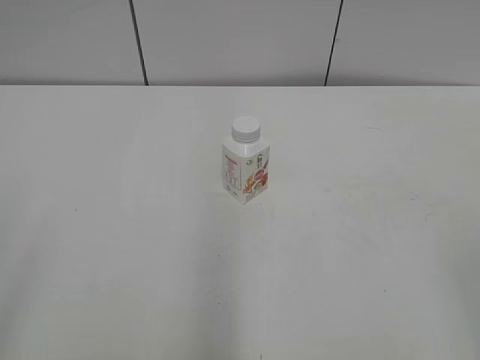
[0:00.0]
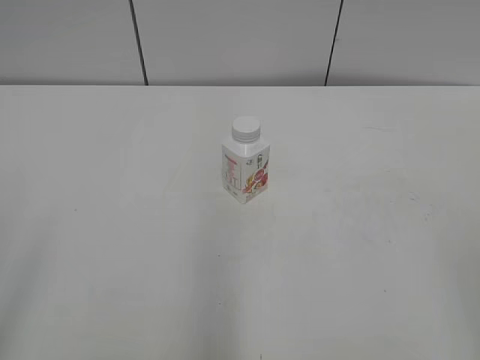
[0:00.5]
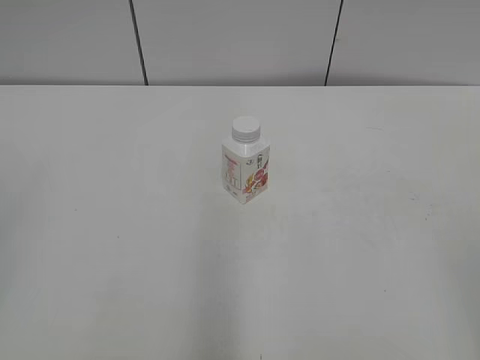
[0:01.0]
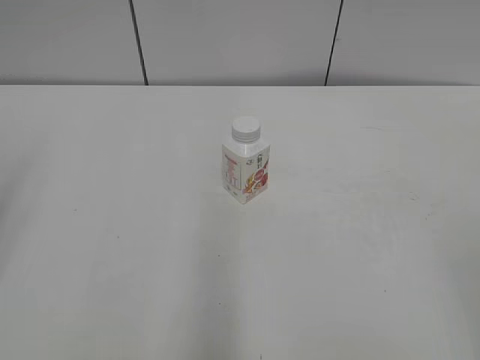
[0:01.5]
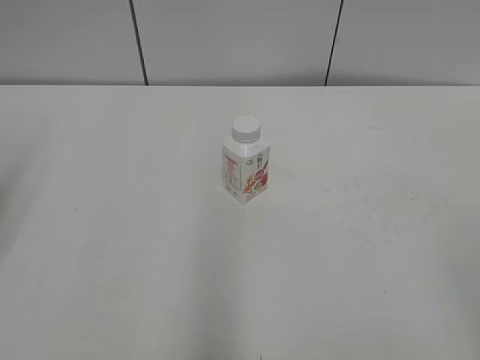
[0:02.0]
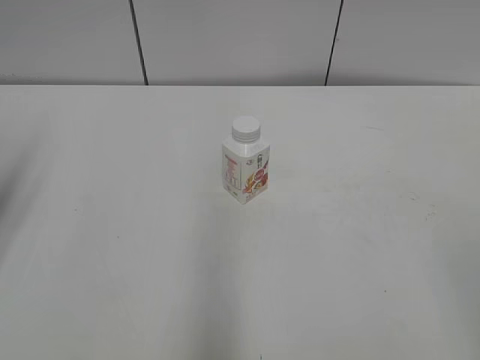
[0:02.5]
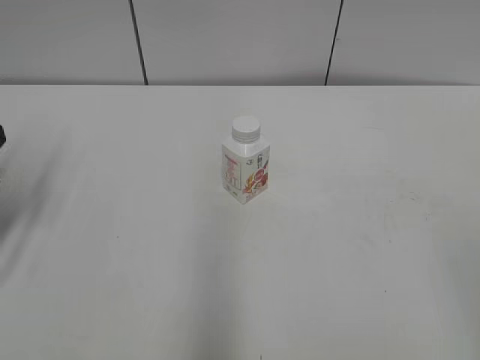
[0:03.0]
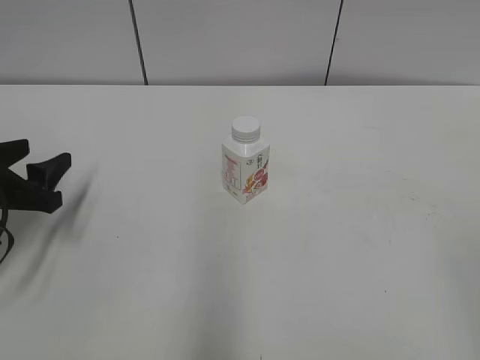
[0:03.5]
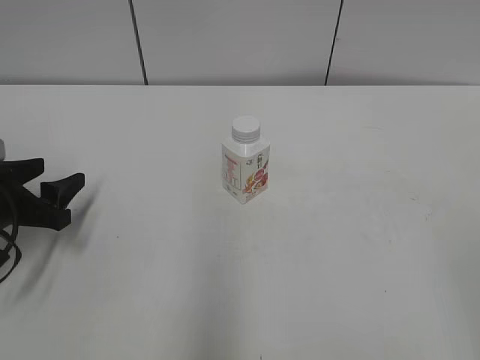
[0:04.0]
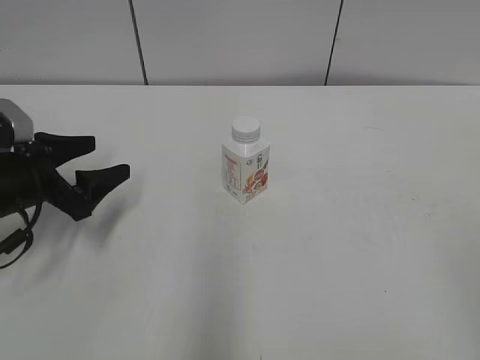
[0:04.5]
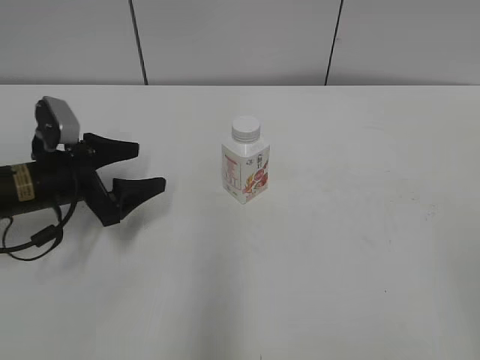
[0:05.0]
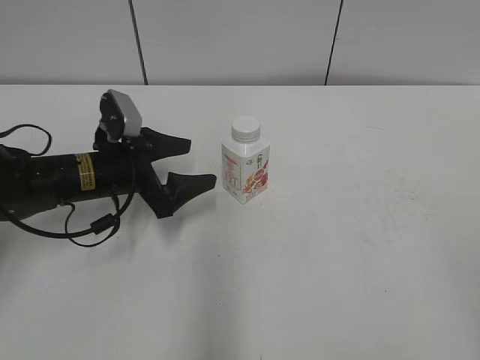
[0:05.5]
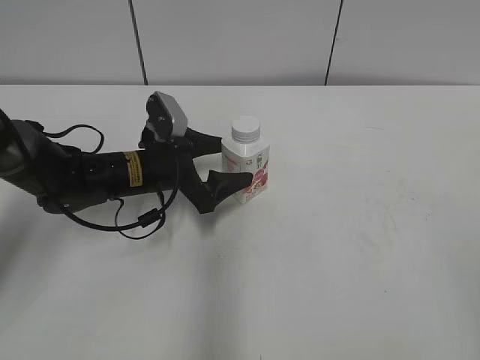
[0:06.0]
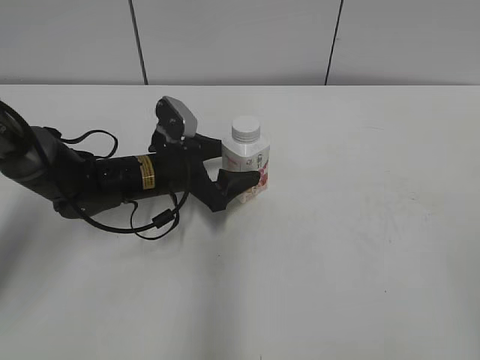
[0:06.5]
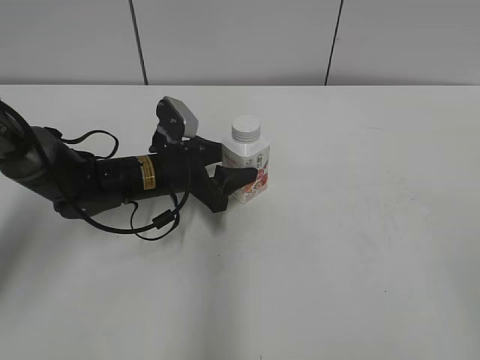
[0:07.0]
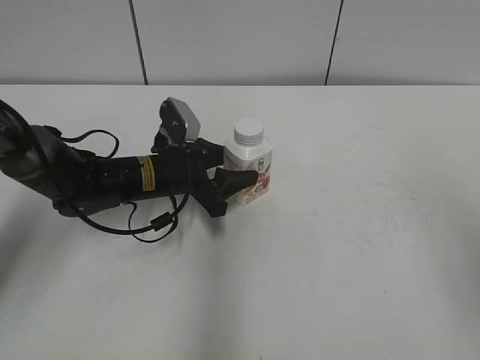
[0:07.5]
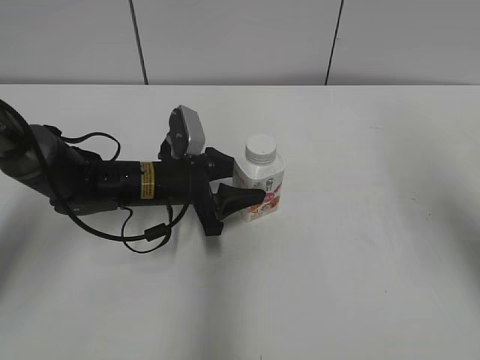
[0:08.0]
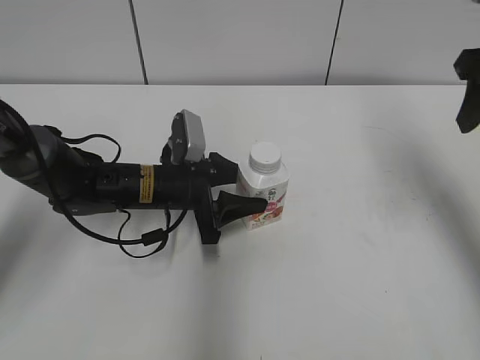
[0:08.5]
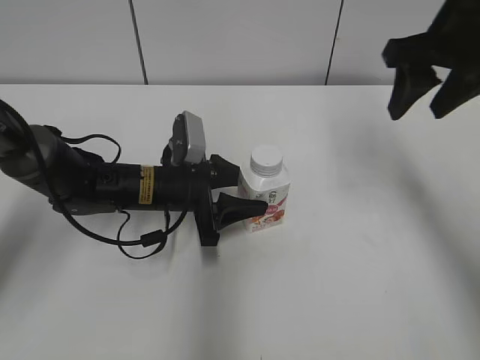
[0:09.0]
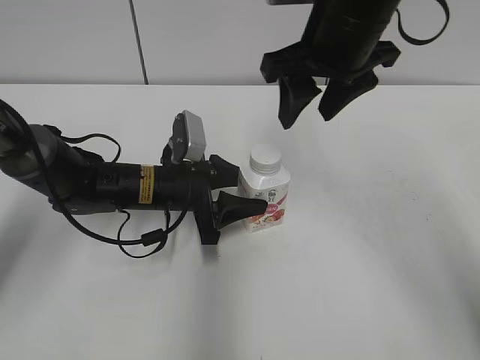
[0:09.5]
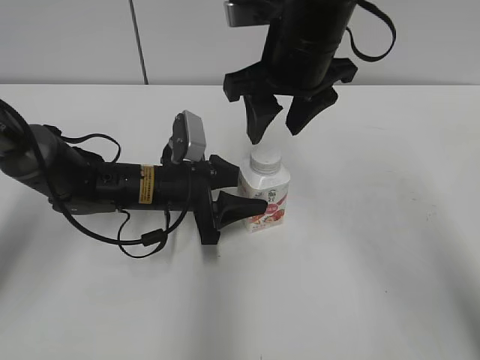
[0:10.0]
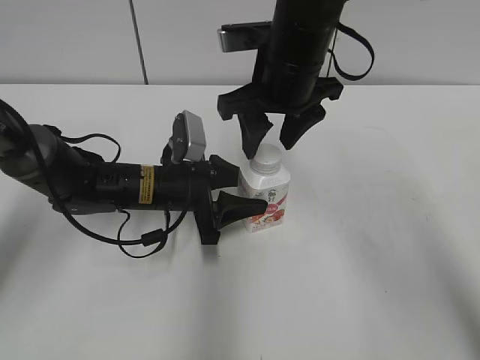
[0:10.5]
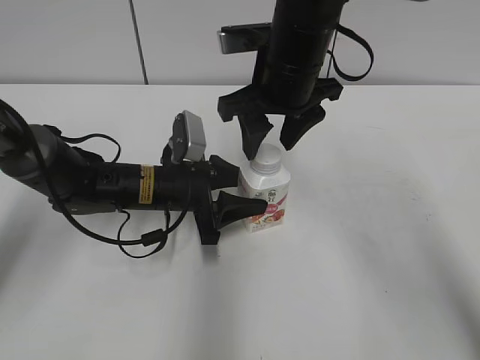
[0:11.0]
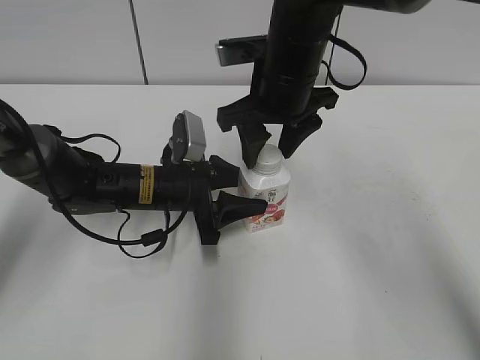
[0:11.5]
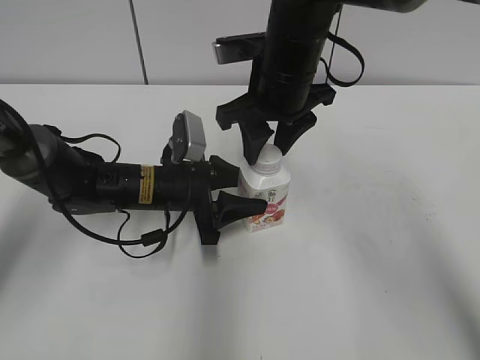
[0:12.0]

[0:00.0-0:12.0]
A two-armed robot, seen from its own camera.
Step, 0:00.0 to 0:07.0: Grab the Yili Changqing with the left hand.
Step, 0:07.5 to 0:08.5: Move the Yili Changqing from left to right.
0:02.0 to 0:04.0: The left gripper travels downward and forward by roughly 20 cm.
0:04.0 to 0:06.0: The left gripper goes some 20 cm to the right and forward, and opens up.
0:06.0 to 0:08.0: The left gripper closes. The right gripper goes roughly 20 cm forward.
0:08.0 to 0:10.0: The right gripper heads to the left and forward, covering about 25 cm.
0:10.0 to 0:12.0: The right gripper closes.

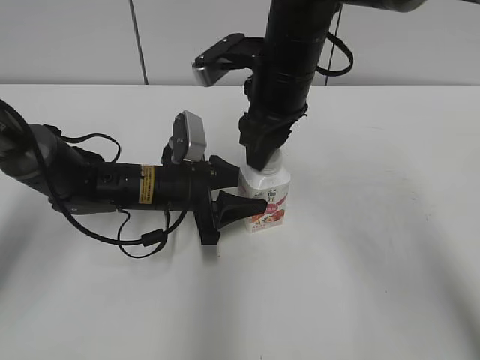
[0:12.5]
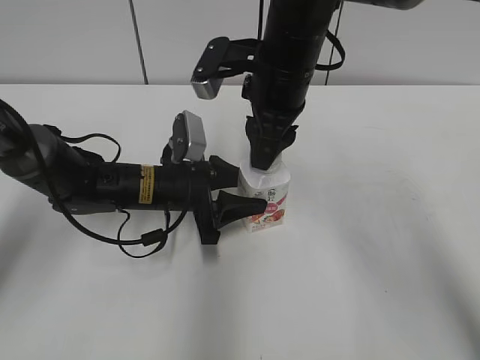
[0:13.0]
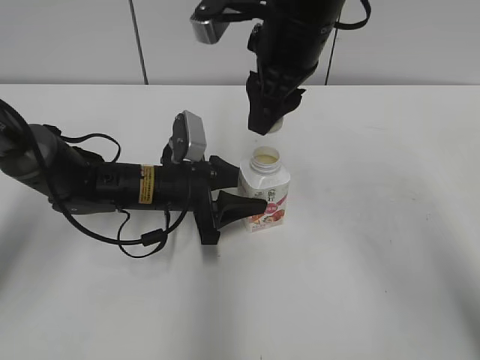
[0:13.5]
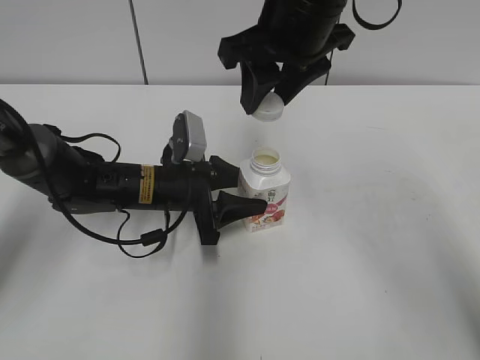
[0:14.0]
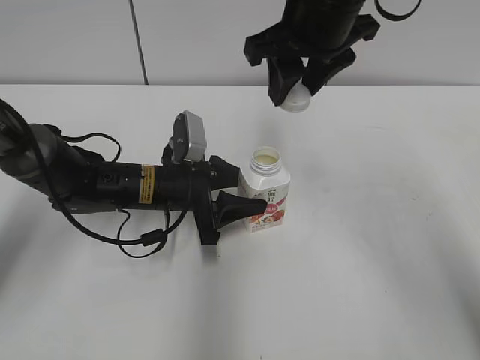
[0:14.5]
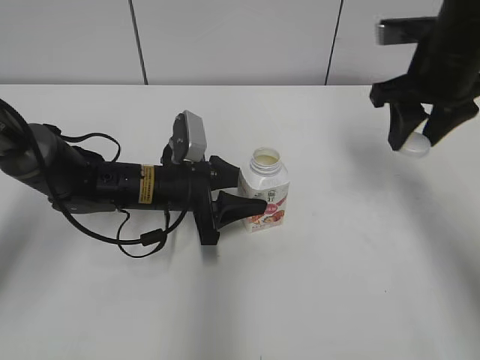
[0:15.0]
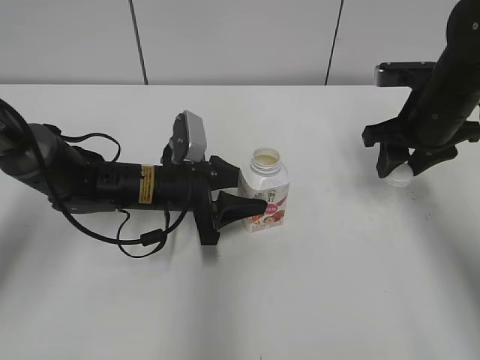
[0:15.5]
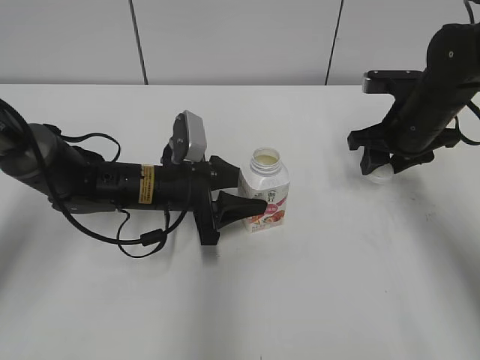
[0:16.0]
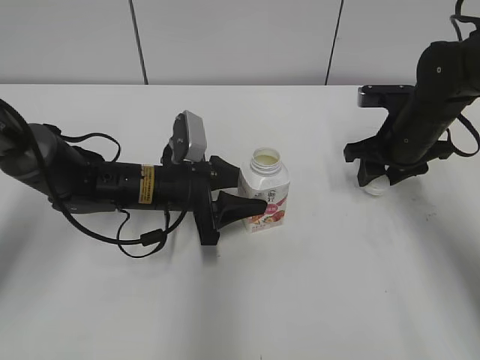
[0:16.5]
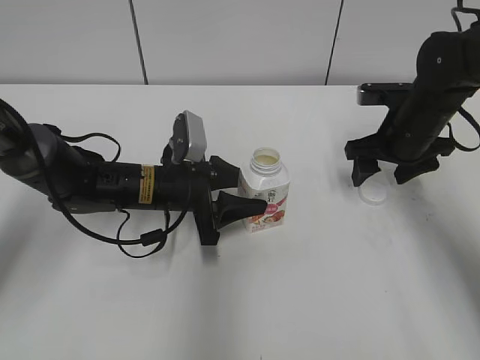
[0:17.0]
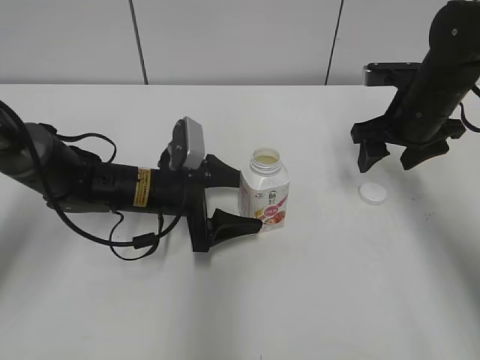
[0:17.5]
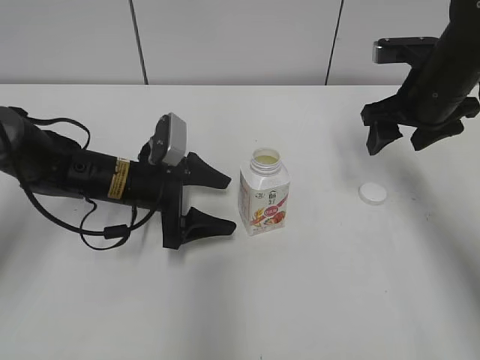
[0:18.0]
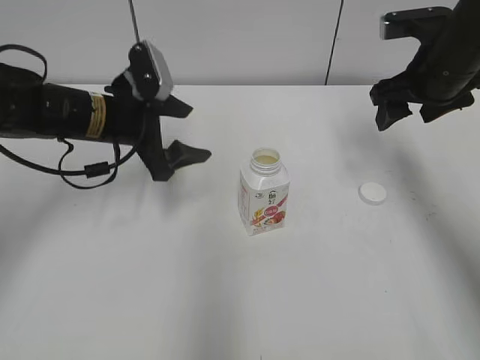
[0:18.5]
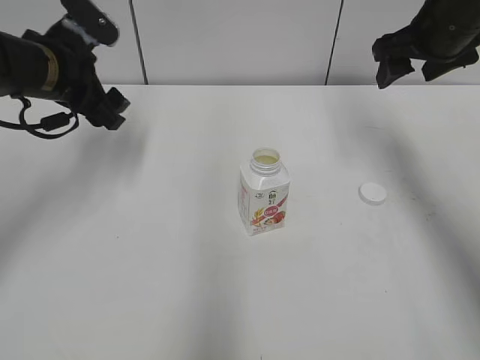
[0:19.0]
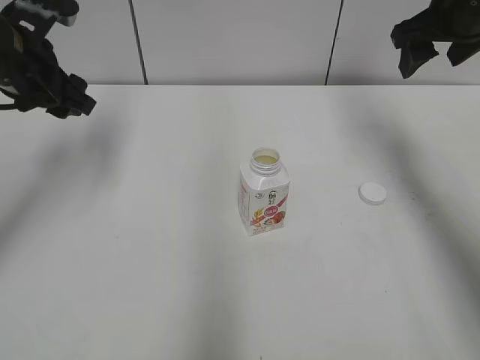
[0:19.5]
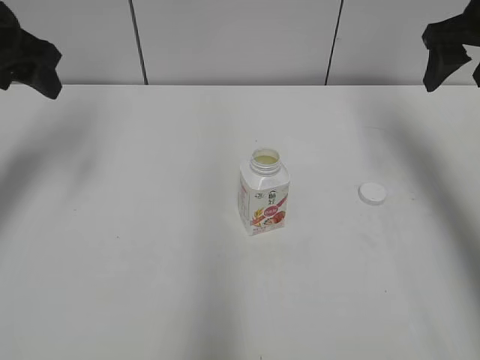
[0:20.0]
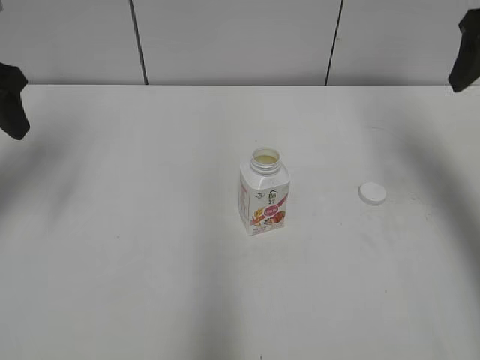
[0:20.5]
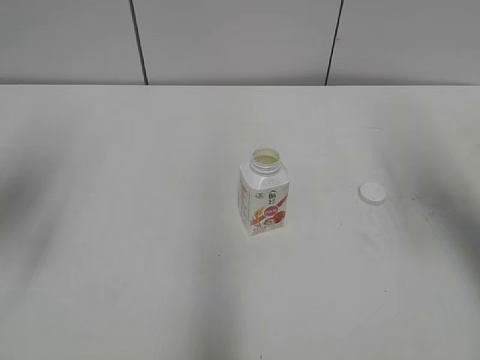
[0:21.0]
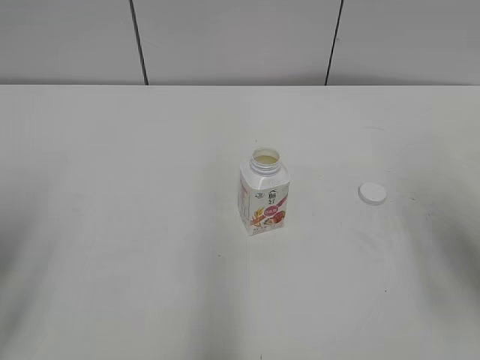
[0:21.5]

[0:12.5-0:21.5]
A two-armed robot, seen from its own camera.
Step, 0:13.5 to 0:16.5: Place the bottle cap on the right.
0:12.5 to 0:14.5: The right gripper goes some 5 cm upward.
0:14.5 to 0:17.0: The right gripper heads downward and to the right, covering roughly 20 cm, and opens up.
0:17.0 to 0:19.5: The left gripper heads upward and to the left, covering about 25 cm, and opens; the right gripper heads upward, covering roughly 15 cm.
0:19.5 to 0:21.5: Both grippers travel together backward, approximately 20 cm.
